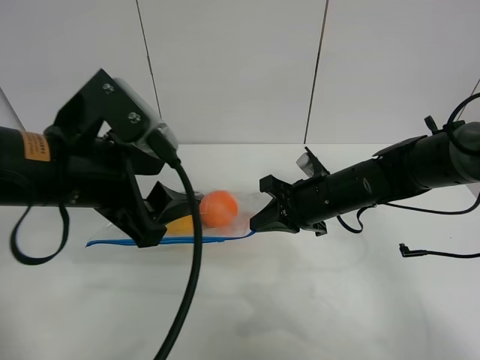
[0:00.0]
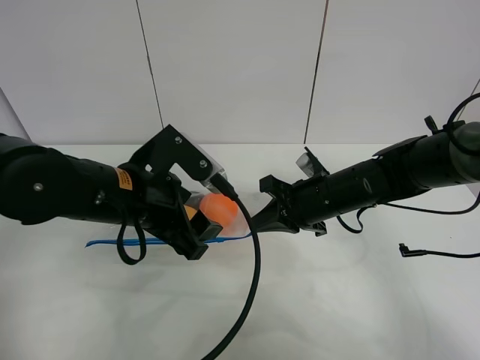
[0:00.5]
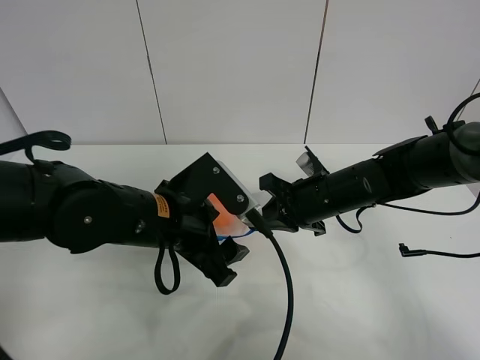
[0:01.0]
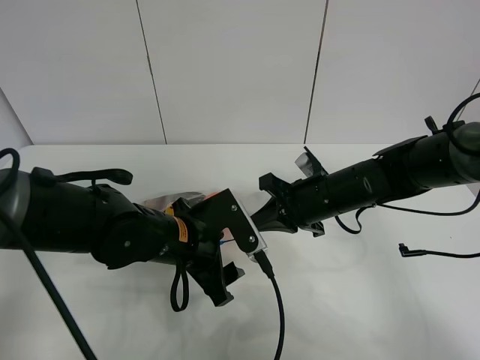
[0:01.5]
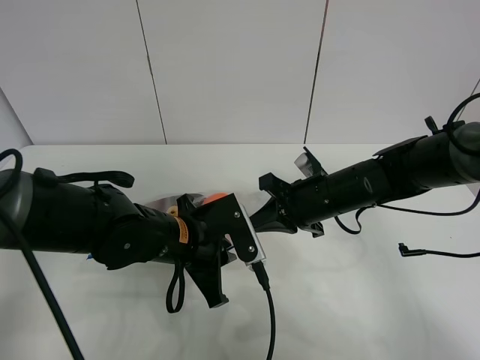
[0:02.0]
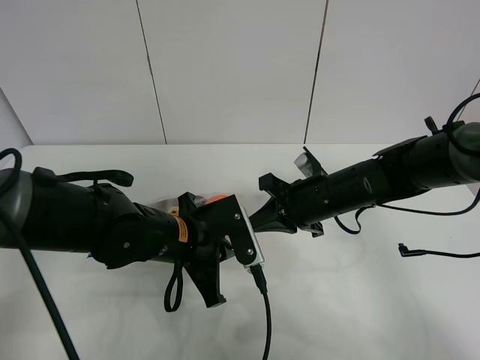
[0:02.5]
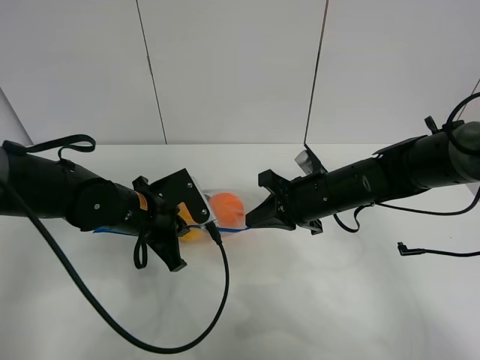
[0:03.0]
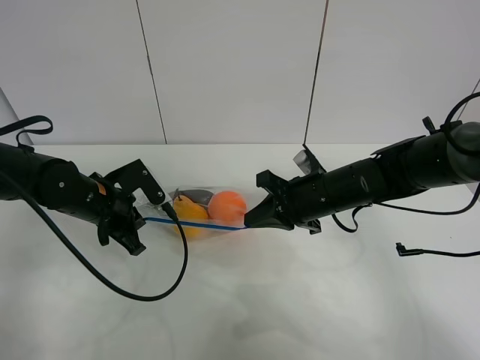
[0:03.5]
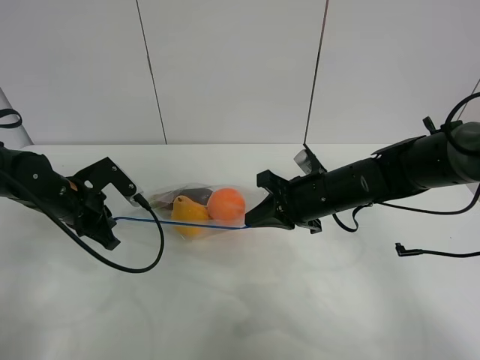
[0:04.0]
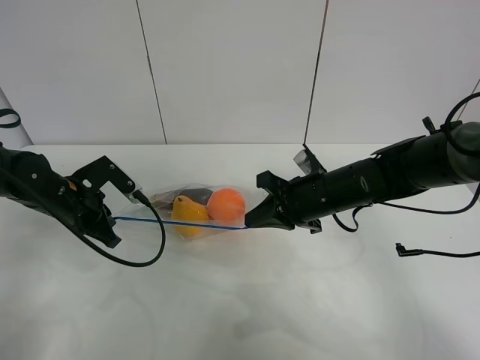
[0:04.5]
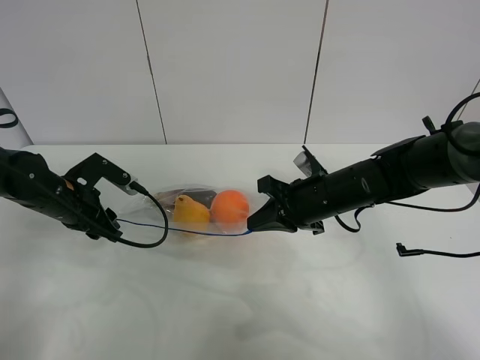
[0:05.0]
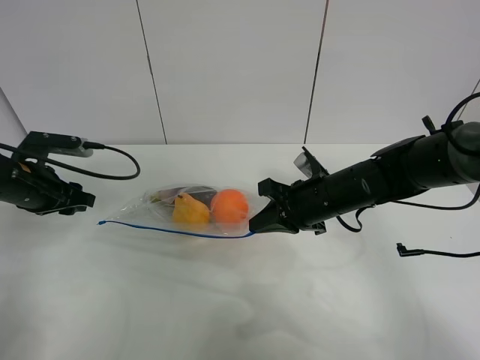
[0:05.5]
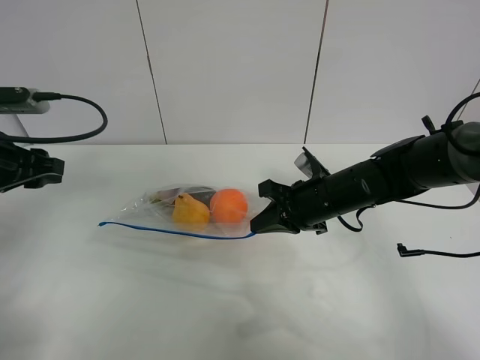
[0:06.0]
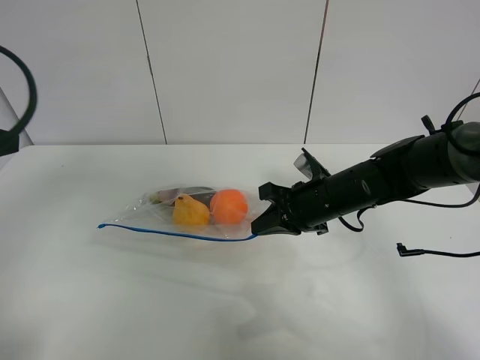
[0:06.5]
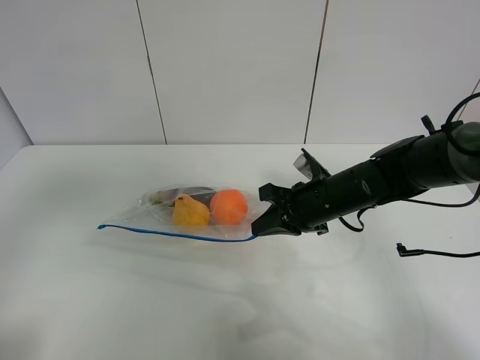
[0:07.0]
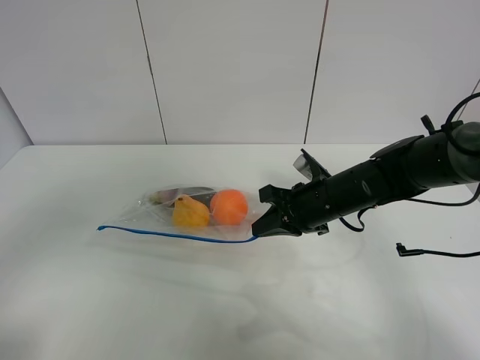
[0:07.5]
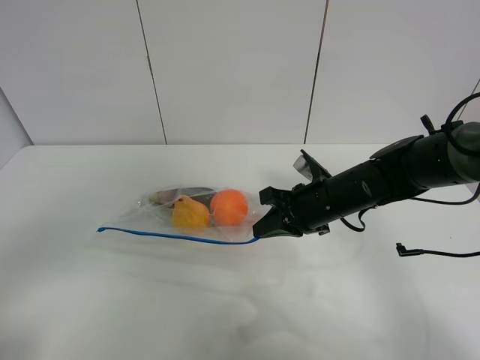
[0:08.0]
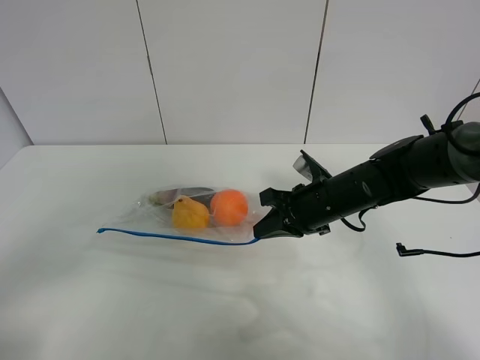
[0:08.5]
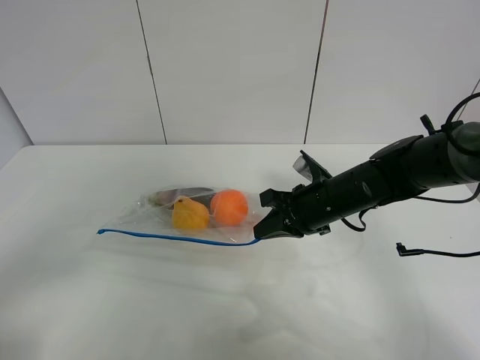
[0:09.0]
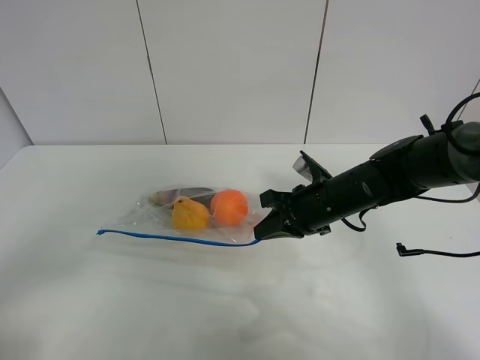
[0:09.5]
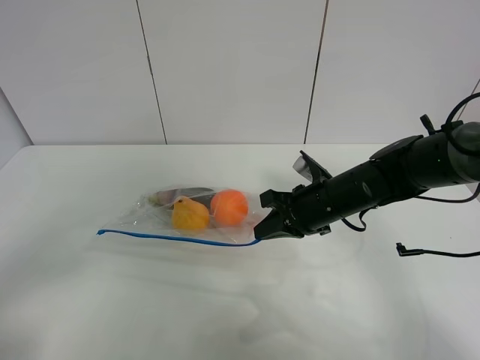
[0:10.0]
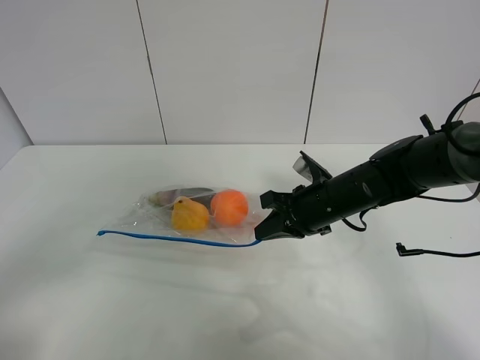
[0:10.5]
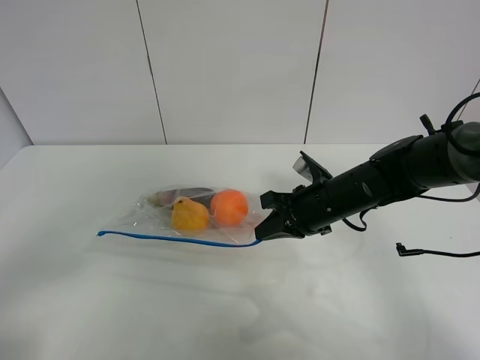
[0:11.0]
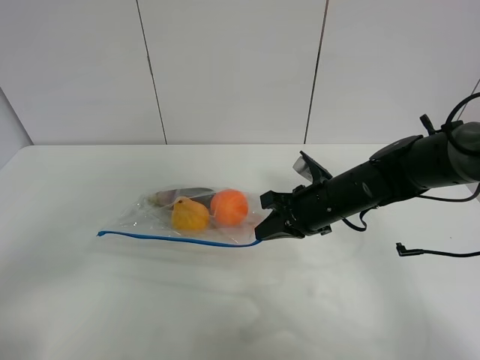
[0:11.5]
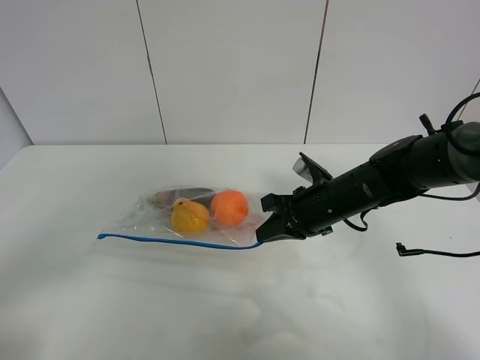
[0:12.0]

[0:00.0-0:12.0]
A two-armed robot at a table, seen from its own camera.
Step, 0:00.0 to 0:05.0: Pull the fruit bag with left gripper.
0:00.0 to 0:02.0: The left gripper shifts approximately 15 cm downward and to the right, and closes its fingers.
0:02.0 to 0:04.0: The left gripper moves to the left and forward, roughly 20 cm.
0:04.0 to 0:06.0: The left gripper is displaced upward, backward and to the left by approximately 15 cm, and opens up.
0:06.0 to 0:08.0: The left gripper shifts roughly 30 cm backward.
0:08.0 to 0:10.0: The left gripper travels downward by some 5 cm.
0:10.0 to 0:12.0: The two grippers keep their place.

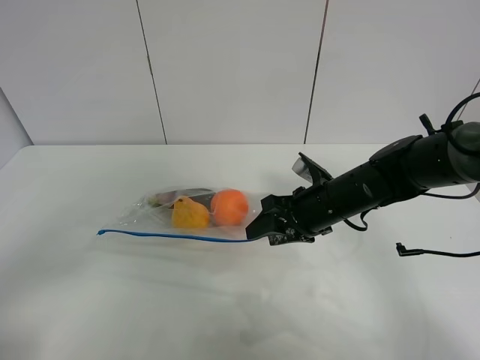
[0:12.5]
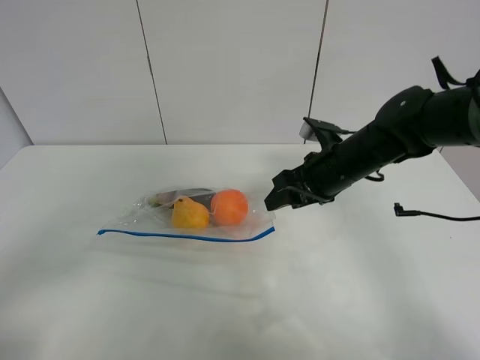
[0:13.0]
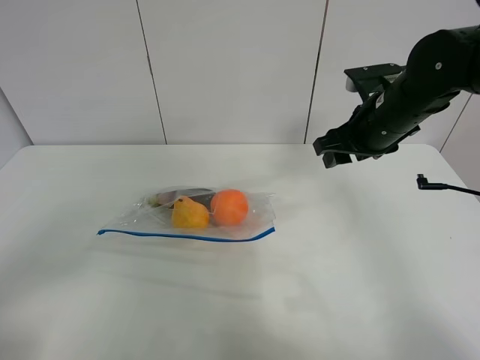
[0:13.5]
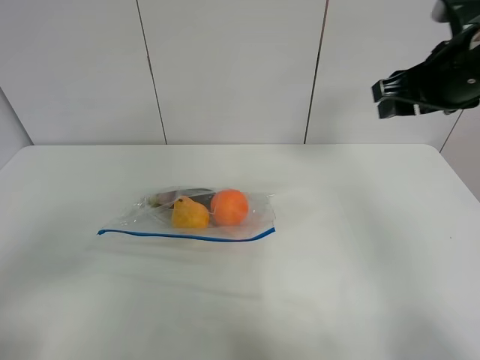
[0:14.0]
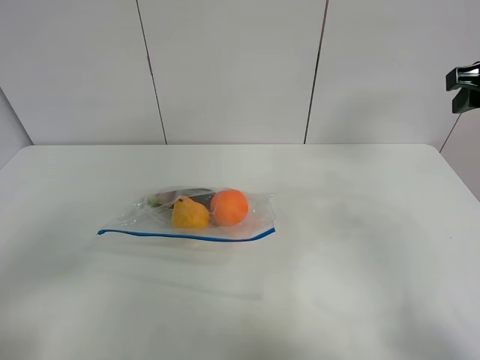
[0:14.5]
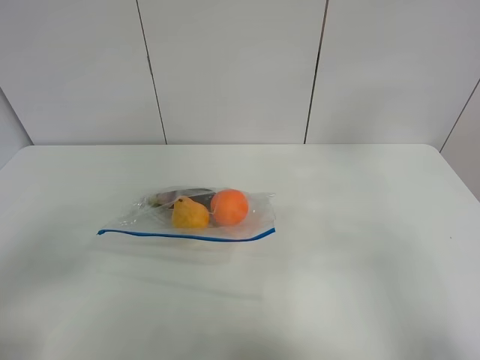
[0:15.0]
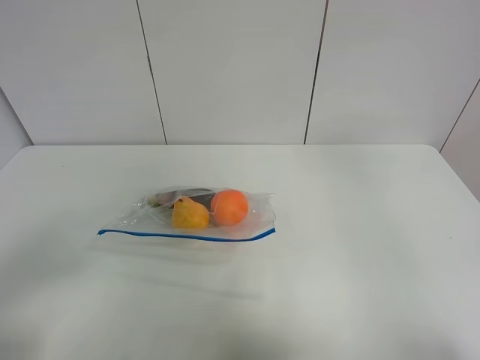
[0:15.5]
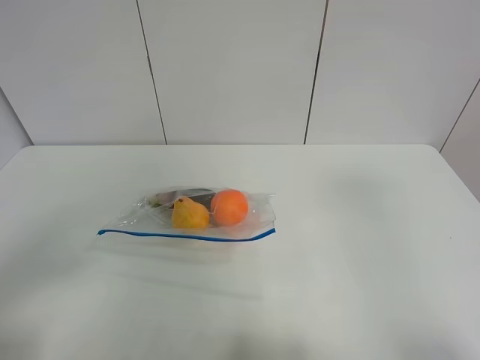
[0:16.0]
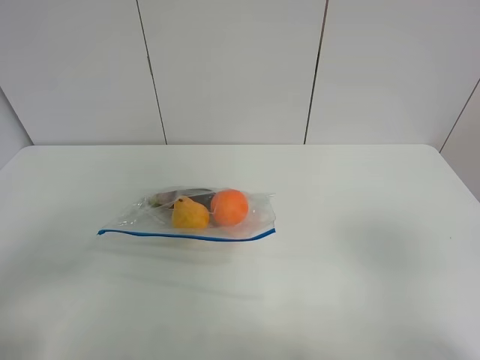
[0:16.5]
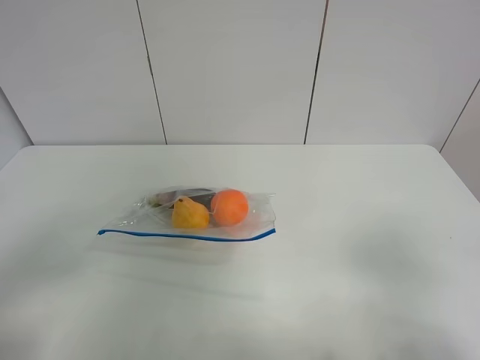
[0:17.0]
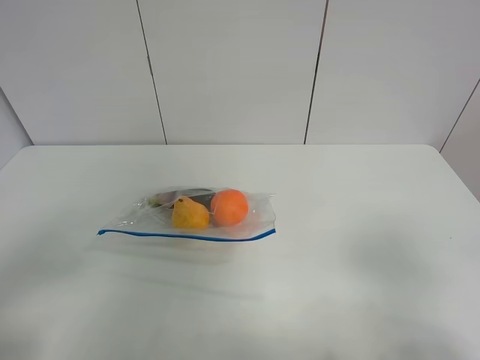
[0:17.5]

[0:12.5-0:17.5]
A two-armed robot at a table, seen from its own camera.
0:12.5 to 0:15.0: The right gripper shifts some 30 cm upward and to the right.
0:15.0 to 0:17.5: The right gripper goes about 25 cm backward and downward.
